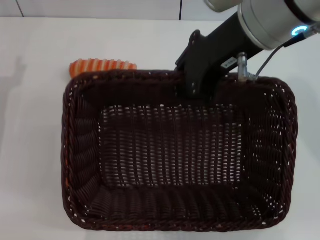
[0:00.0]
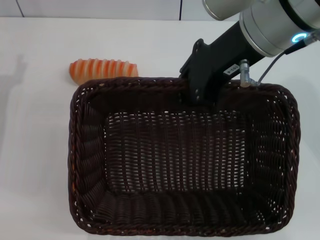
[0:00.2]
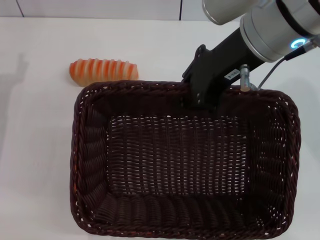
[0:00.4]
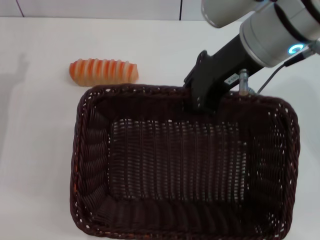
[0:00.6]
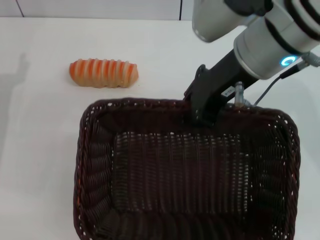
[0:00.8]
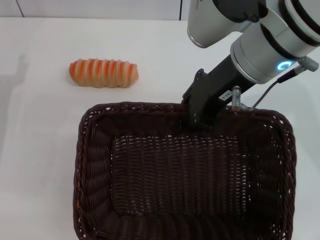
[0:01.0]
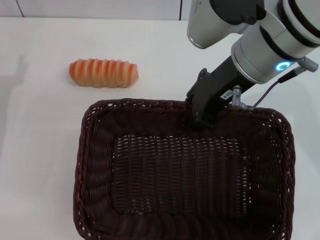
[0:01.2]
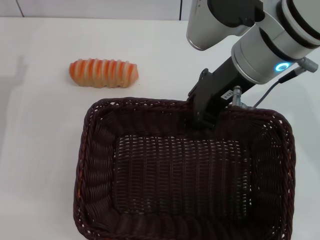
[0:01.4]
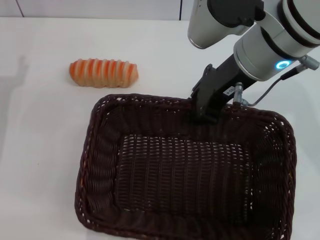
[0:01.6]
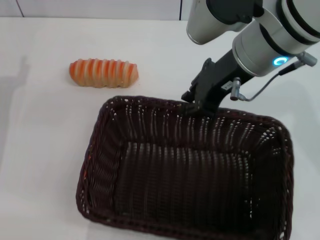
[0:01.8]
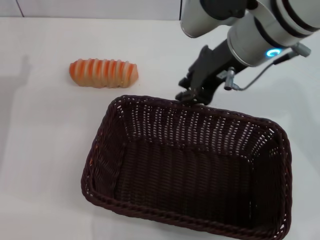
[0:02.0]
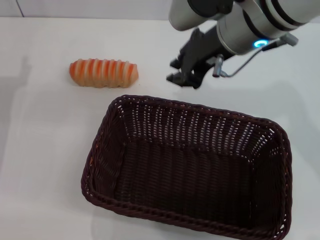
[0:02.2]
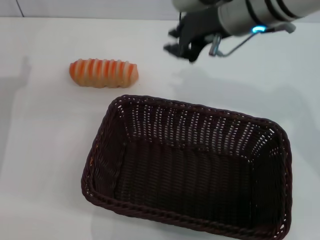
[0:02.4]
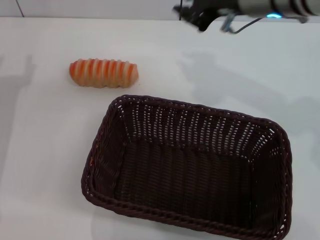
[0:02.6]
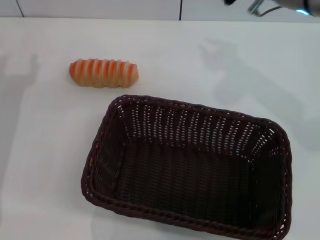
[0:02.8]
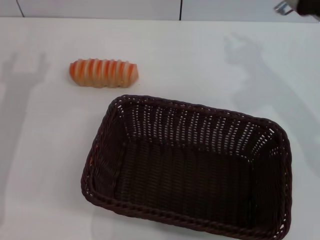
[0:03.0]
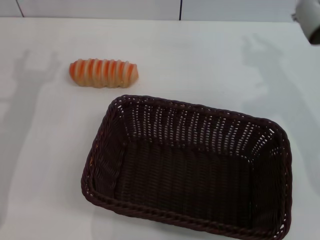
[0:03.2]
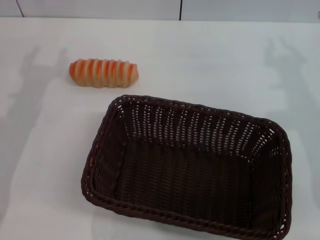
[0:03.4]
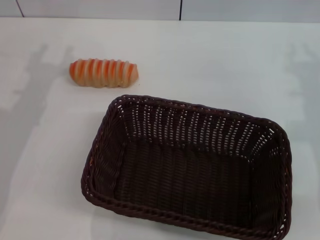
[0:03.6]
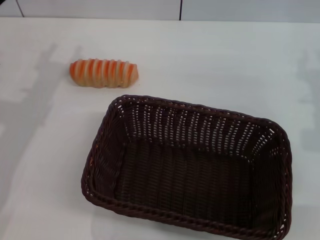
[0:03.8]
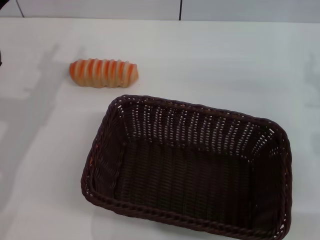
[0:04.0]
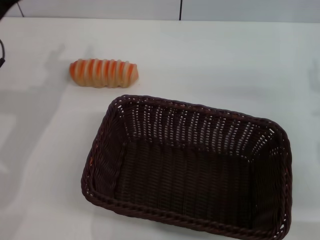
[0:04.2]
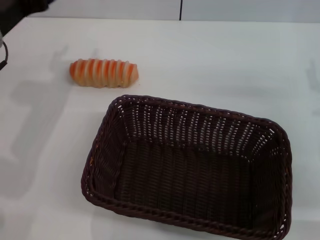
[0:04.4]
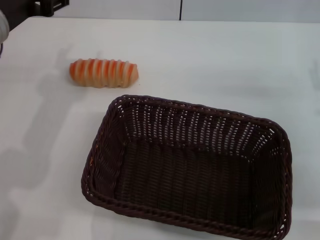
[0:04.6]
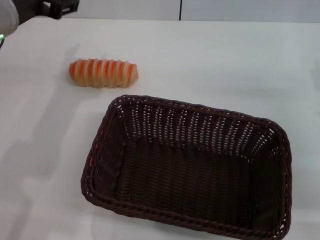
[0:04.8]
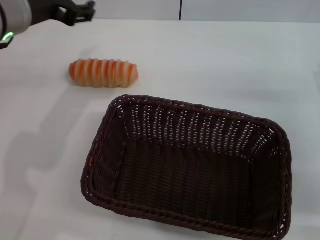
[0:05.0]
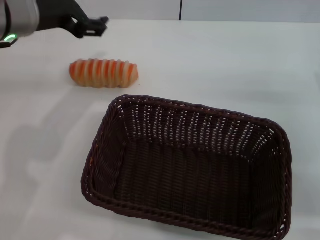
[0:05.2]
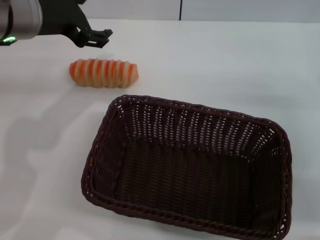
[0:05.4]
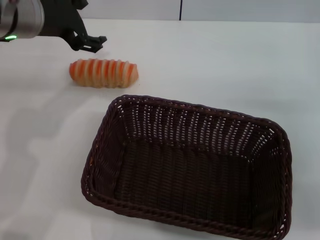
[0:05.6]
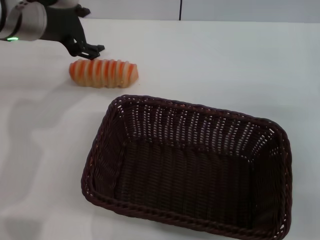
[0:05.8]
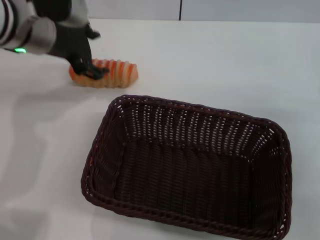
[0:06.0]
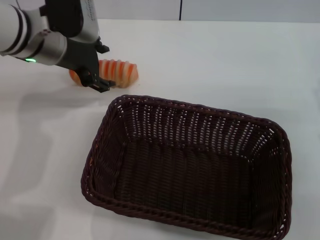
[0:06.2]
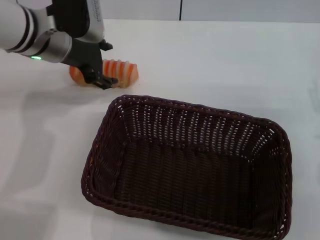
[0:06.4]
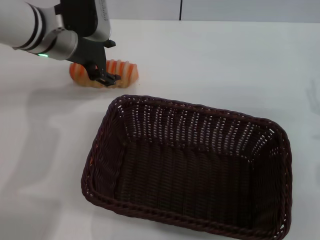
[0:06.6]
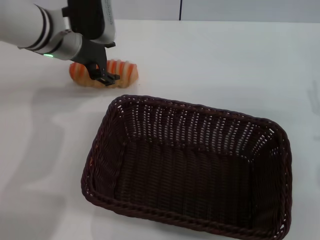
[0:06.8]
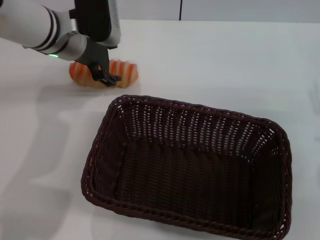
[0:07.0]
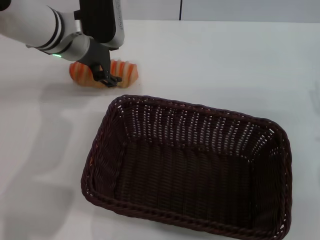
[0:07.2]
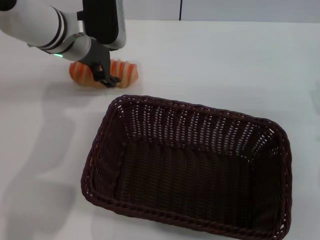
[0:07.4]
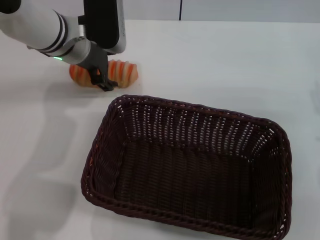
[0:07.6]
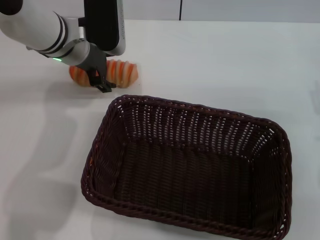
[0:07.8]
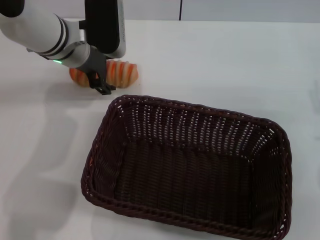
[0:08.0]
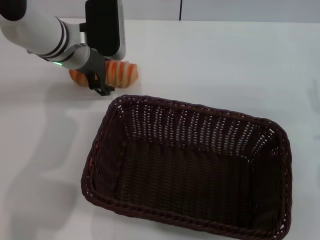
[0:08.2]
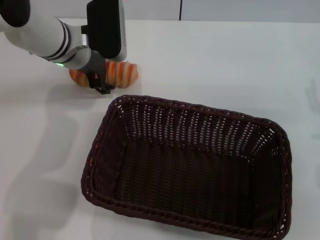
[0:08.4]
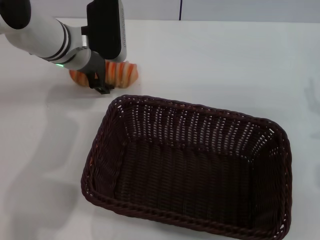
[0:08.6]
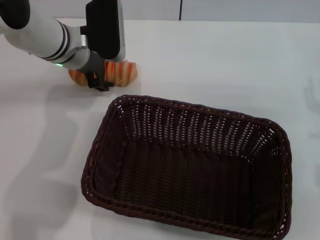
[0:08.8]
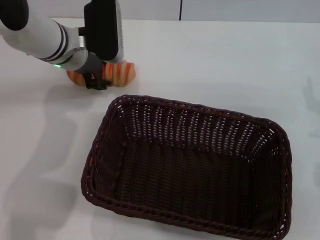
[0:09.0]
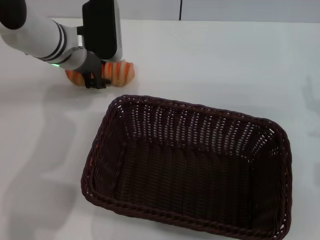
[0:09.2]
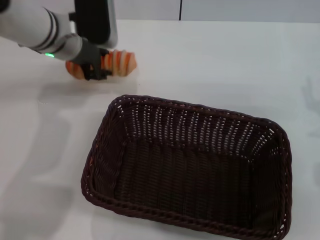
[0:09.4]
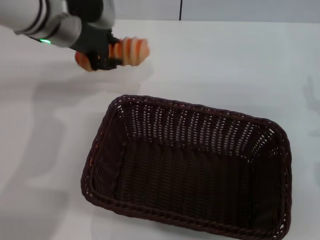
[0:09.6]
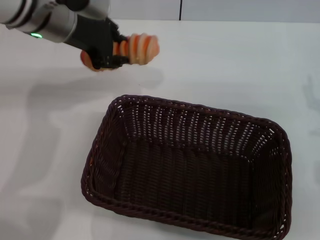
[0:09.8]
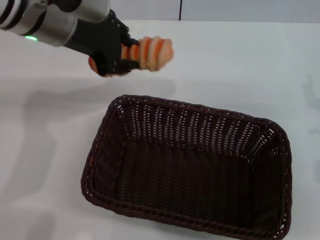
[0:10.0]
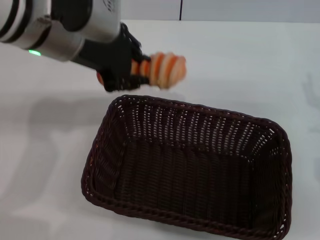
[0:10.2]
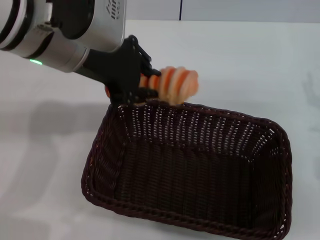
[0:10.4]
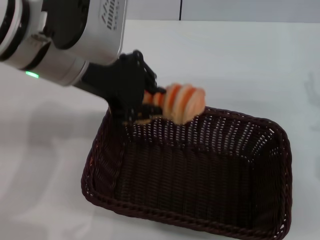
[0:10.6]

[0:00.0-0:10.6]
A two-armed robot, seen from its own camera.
Step, 0:00.0 to 0:02.0: Place the dark basket in the center of view with the right gripper.
Step, 0:02.2 to 0:09.4: Pick up the long bread with the left gripper.
0:00.0 to 0:01.6: The right gripper travels downward by roughly 5 cm.
0:01.6 to 0:03.0: The right gripper shifts approximately 10 cm to the right.
0:03.0 to 0:04.6: The right gripper heads downward, to the right and backward, covering roughly 15 cm, and opens up. The left gripper moves upward and to the right, about 10 cm.
0:04.6 to 0:06.0: The left gripper is displaced forward by approximately 5 cm.
0:06.0 to 0:07.6: The left gripper ends up some 5 cm from where it was.
0:07.6 to 0:09.0: The grippers make only small movements.
0:09.0 to 0:10.6: The left gripper heads upward and backward, covering roughly 20 cm, and closes.

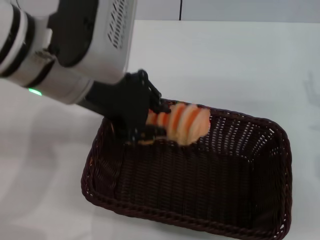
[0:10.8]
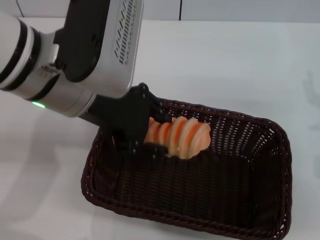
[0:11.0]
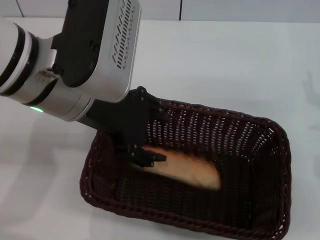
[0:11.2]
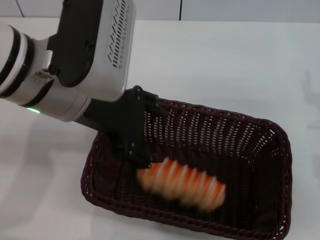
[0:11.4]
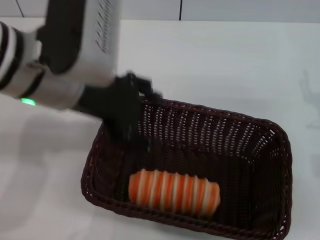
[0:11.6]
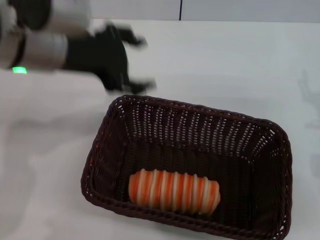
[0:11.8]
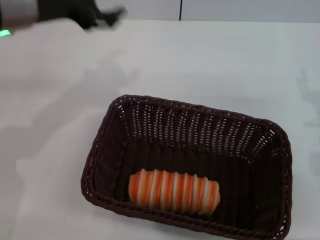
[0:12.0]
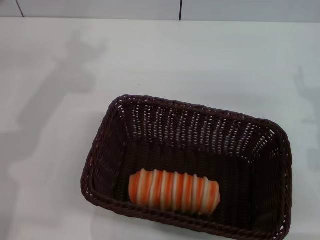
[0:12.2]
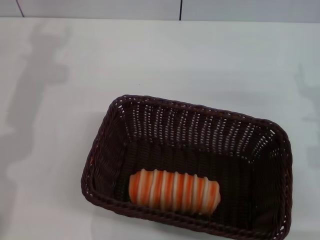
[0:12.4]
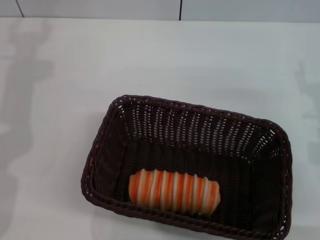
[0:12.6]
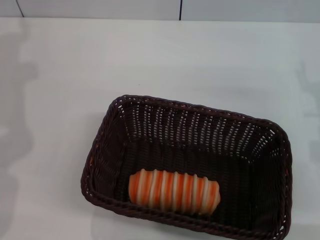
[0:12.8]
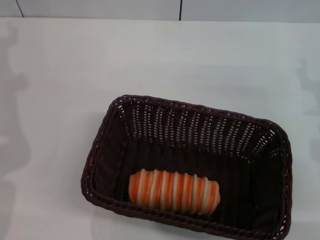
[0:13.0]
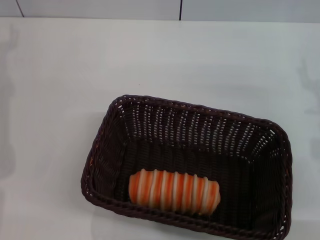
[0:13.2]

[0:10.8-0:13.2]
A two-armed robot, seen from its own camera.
0:10.8 to 0:12.0: The left gripper is displaced to the left and forward by roughly 10 cm, and opens up.
0:12.0 to 0:13.2: The left gripper goes approximately 15 cm to the left and downward.
